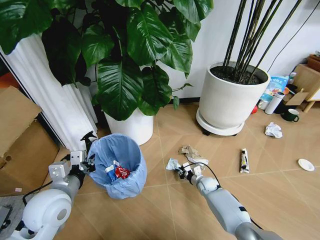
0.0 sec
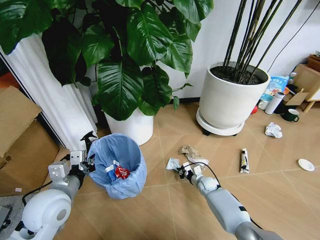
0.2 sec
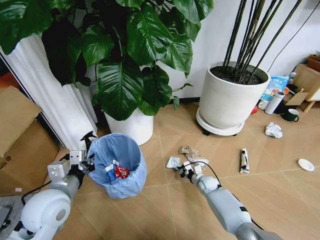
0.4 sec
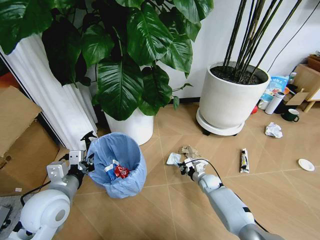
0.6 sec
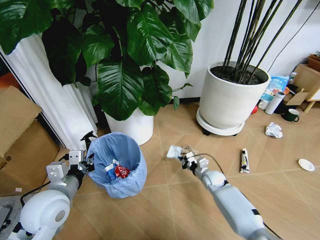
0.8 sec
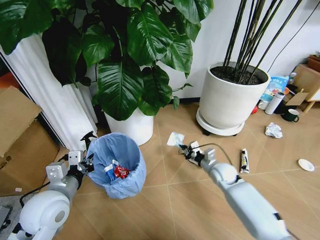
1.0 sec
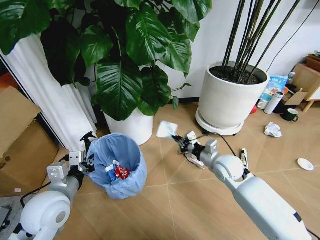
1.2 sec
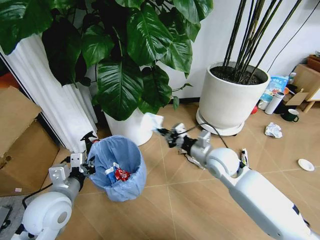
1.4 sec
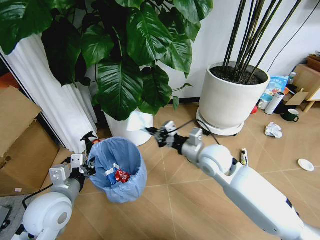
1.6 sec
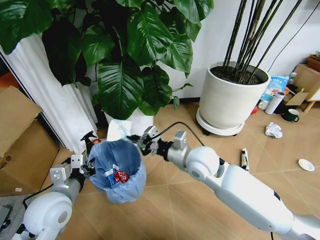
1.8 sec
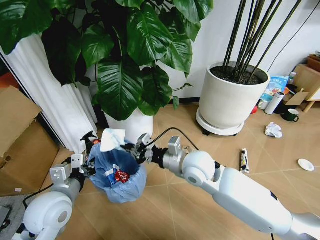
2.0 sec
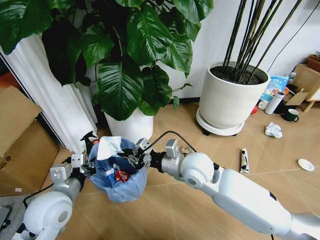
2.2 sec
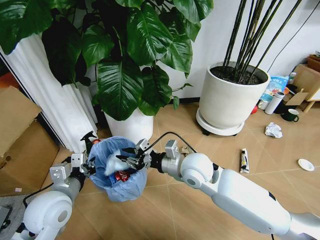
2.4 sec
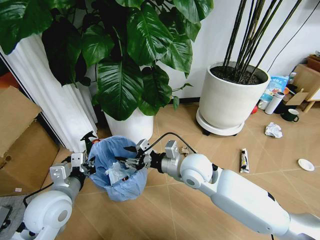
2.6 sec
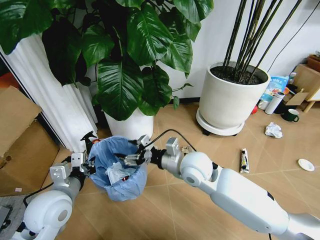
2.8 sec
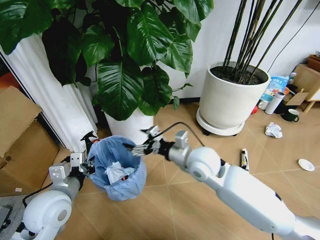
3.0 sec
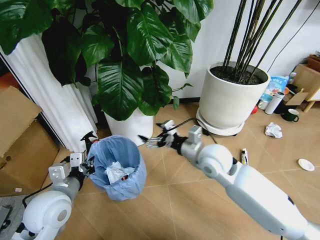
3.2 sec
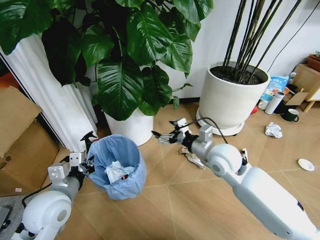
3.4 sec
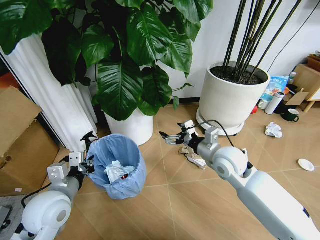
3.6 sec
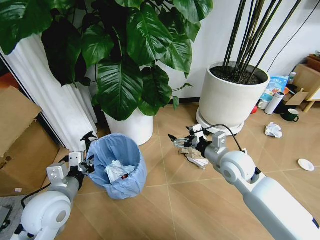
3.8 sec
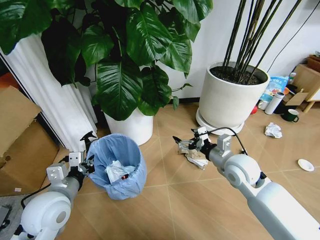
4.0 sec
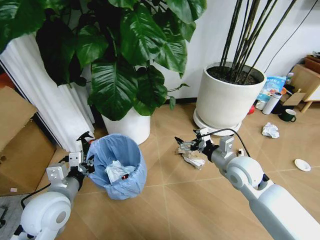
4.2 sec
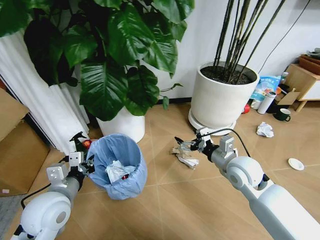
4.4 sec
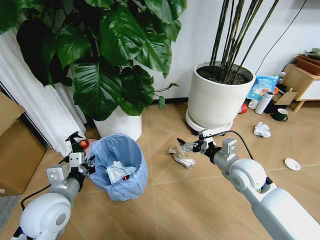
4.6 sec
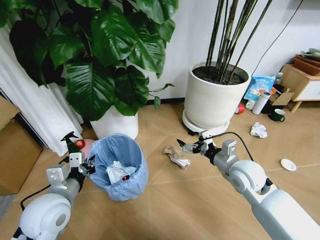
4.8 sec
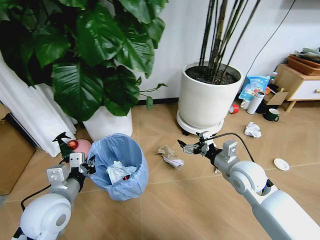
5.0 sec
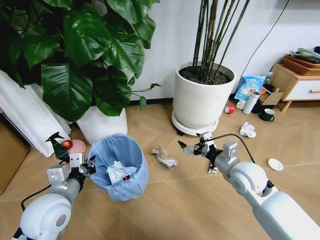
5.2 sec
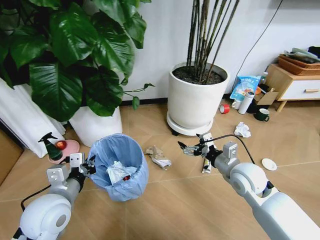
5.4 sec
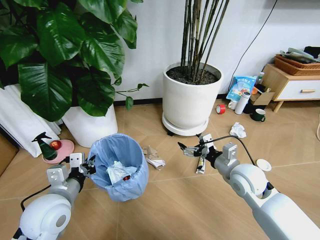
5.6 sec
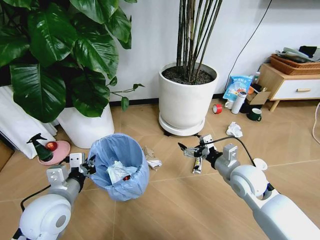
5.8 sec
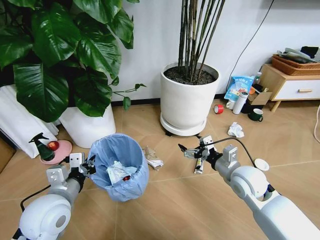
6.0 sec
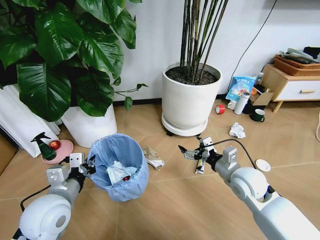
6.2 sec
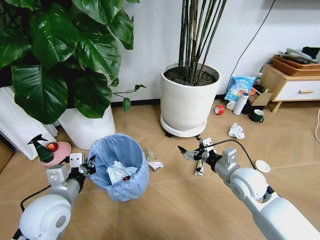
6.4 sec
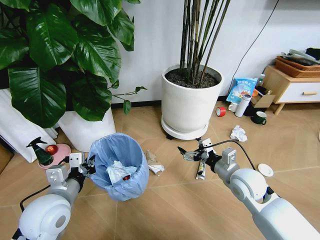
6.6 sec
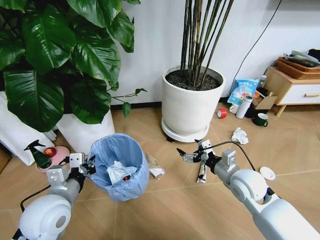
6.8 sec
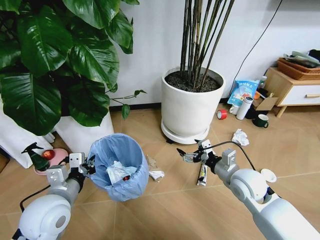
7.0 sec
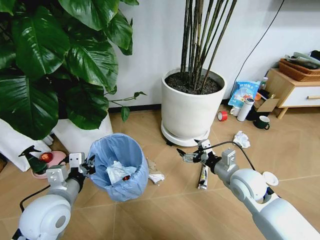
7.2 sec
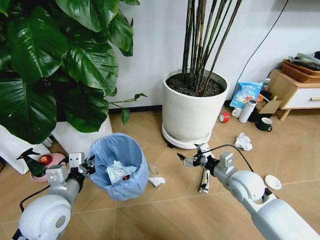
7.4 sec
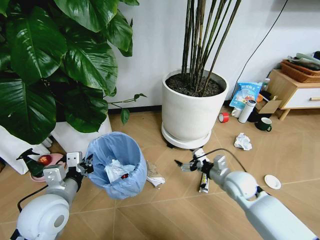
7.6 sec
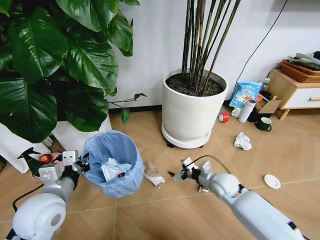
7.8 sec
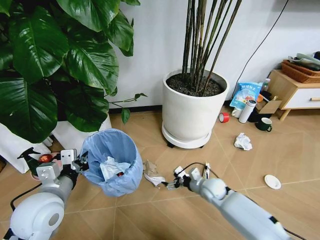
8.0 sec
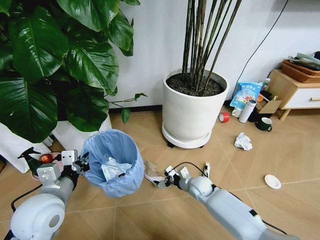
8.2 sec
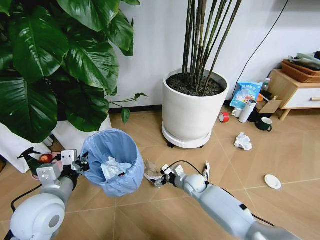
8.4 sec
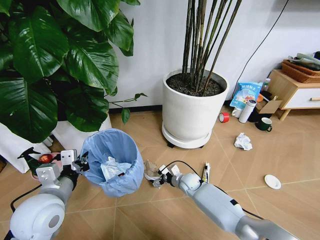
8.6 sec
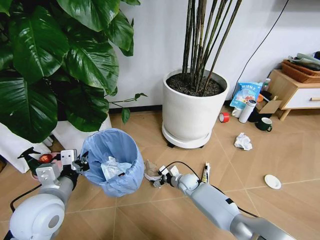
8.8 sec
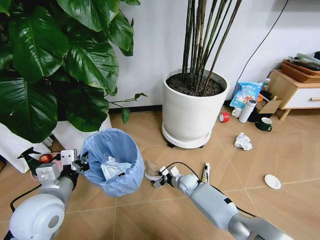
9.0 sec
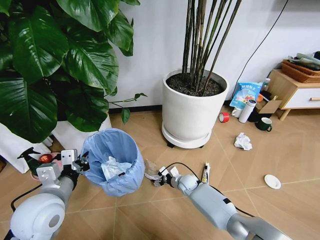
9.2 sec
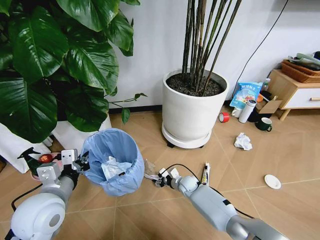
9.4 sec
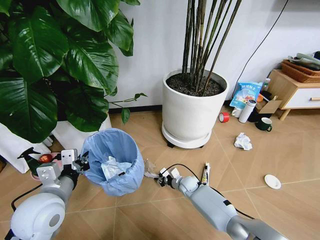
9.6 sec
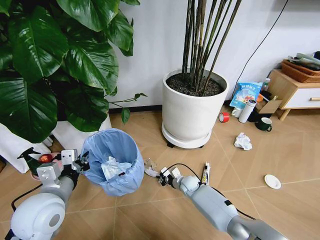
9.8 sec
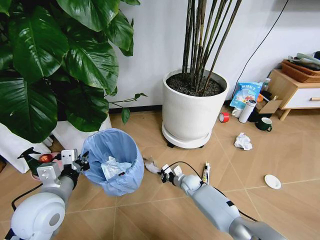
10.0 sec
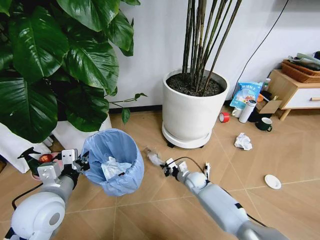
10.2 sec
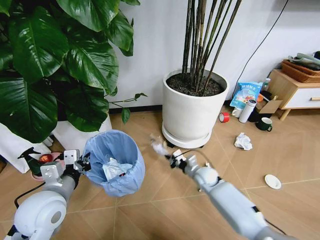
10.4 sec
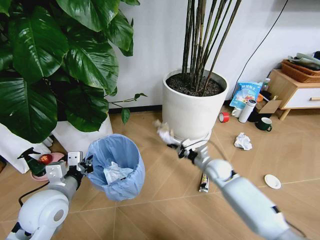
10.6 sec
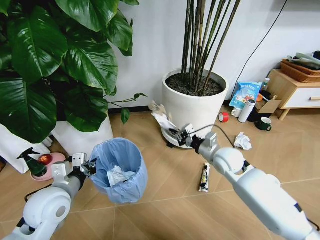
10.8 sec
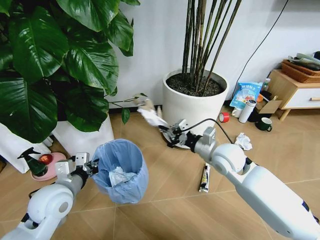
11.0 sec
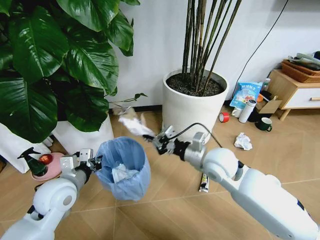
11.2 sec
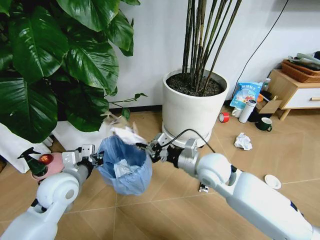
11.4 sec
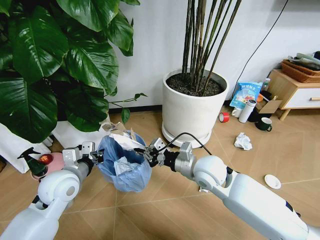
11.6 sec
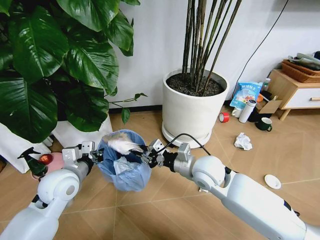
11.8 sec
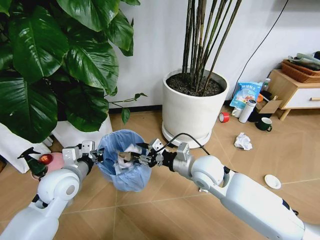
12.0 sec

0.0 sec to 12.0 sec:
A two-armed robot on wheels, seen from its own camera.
Task of the whole recording: Pick up the trash bin and place the garbage on the floor into it.
0.0 sec to 1.6 sec: The right gripper heads upward, covering roughly 35 cm.
1.6 sec to 3.0 sec: The right gripper opens its fingers.
3.0 sec to 4.4 sec: The right gripper is displaced to the right by roughly 15 cm.
6.0 sec to 7.6 sec: The right gripper is displaced downward by some 10 cm.
7.6 sec to 9.0 sec: The right gripper moves downward, to the left and forward, about 25 cm.
9.0 sec to 10.4 sec: The right gripper moves upward and to the right, some 10 cm, and closes up.
10.4 sec to 12.0 sec: The right gripper heads upward, covering approximately 20 cm, and opens; the left gripper shifts about 5 cm forward.

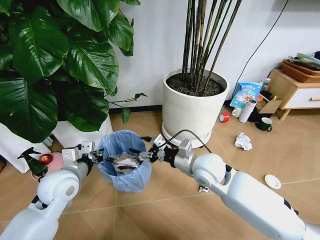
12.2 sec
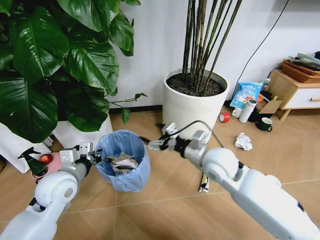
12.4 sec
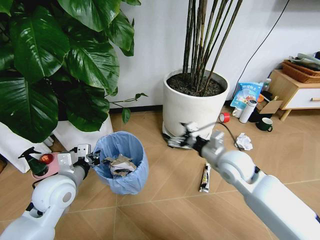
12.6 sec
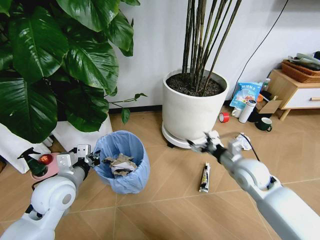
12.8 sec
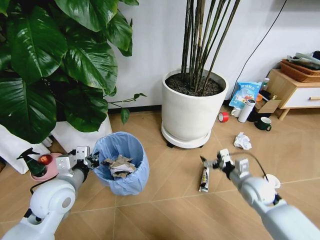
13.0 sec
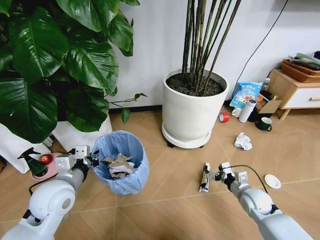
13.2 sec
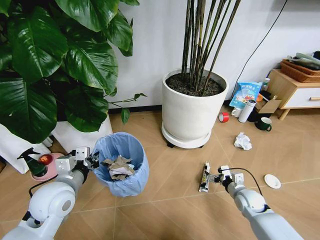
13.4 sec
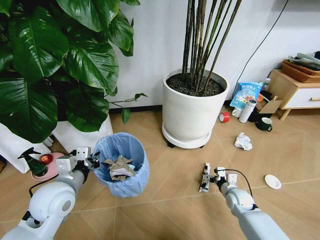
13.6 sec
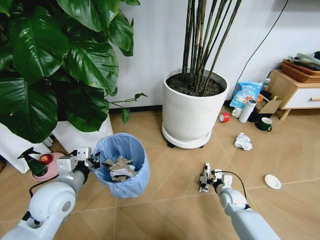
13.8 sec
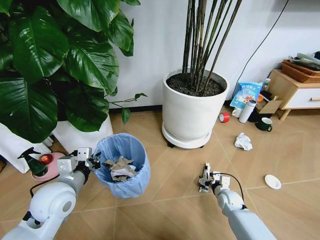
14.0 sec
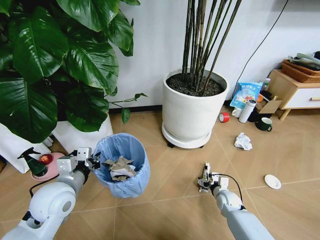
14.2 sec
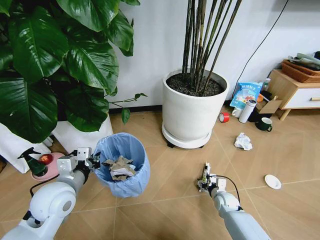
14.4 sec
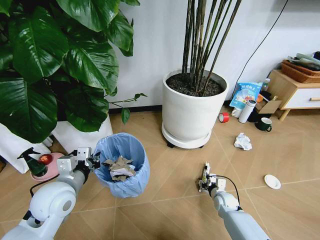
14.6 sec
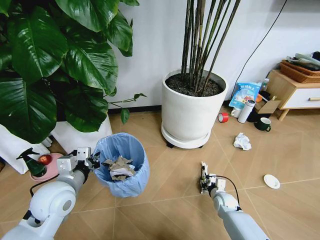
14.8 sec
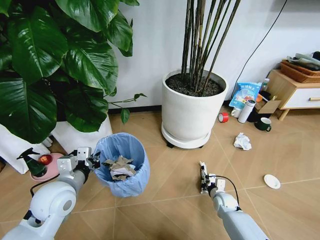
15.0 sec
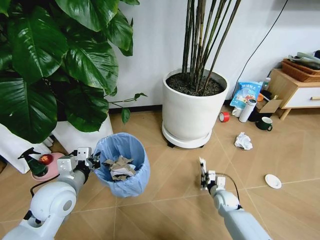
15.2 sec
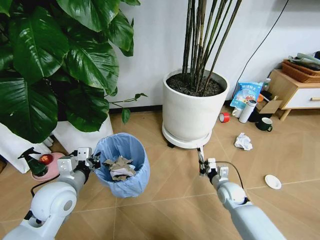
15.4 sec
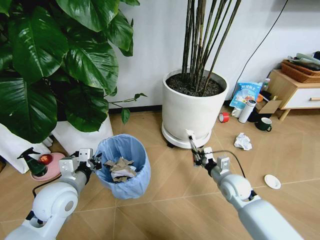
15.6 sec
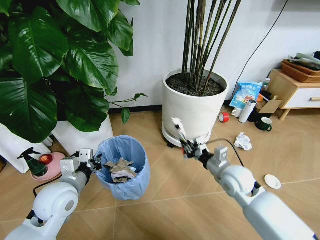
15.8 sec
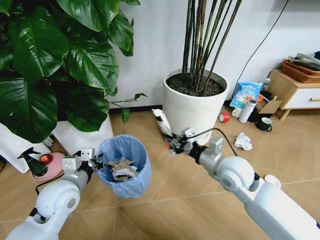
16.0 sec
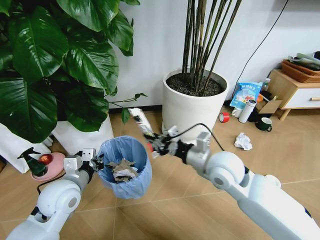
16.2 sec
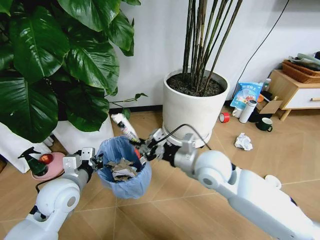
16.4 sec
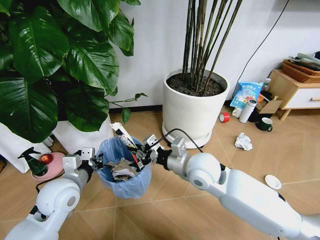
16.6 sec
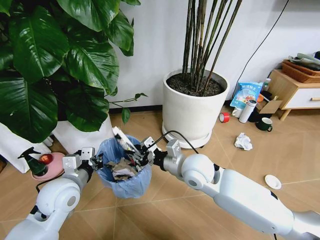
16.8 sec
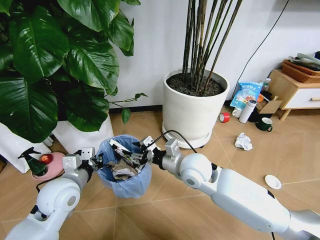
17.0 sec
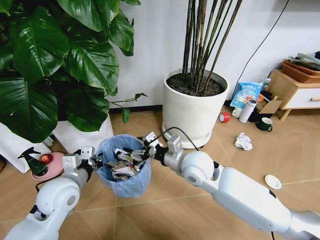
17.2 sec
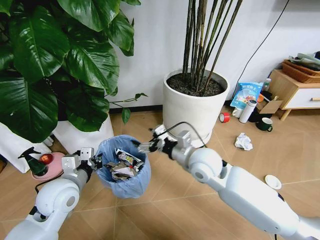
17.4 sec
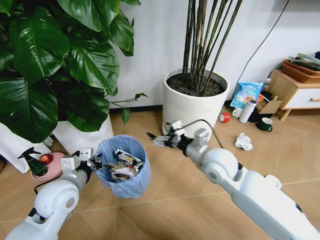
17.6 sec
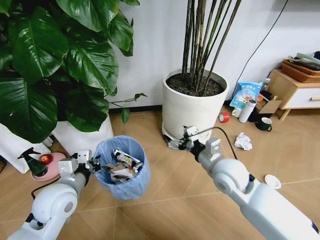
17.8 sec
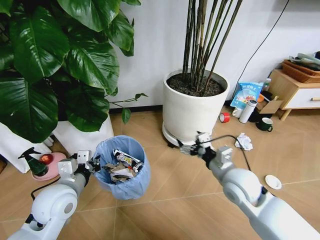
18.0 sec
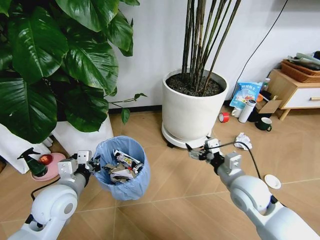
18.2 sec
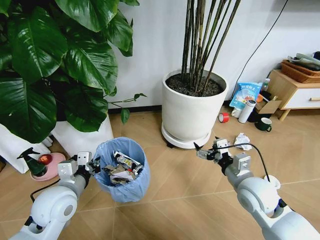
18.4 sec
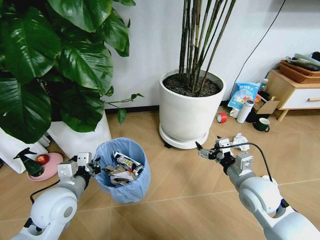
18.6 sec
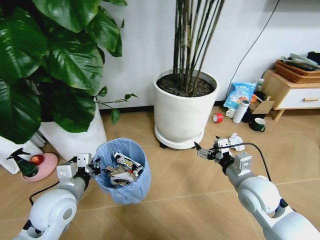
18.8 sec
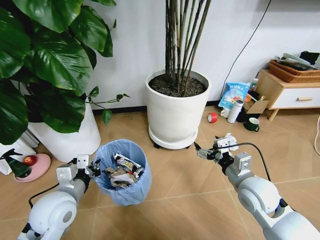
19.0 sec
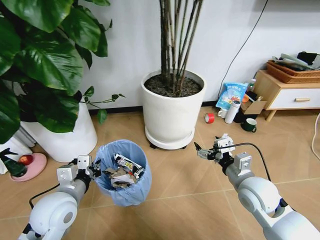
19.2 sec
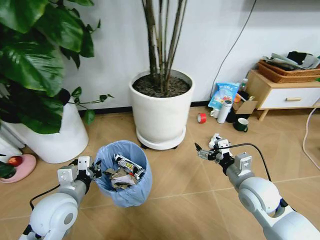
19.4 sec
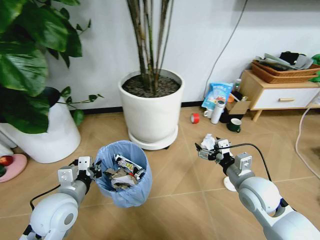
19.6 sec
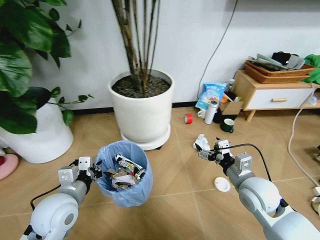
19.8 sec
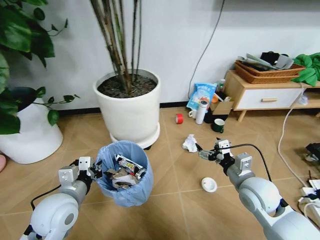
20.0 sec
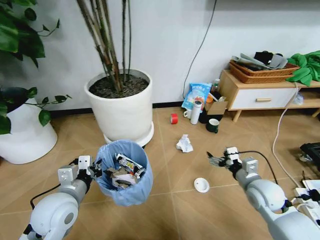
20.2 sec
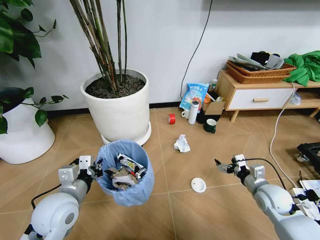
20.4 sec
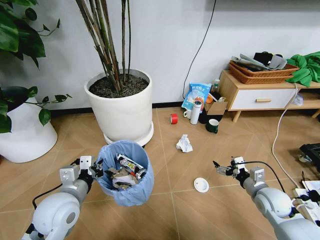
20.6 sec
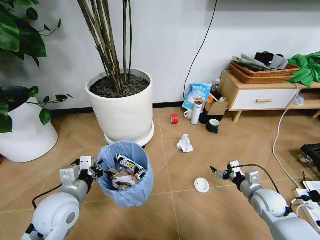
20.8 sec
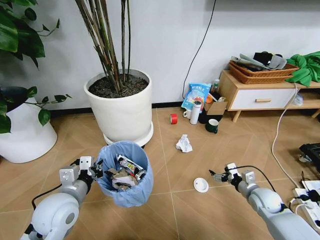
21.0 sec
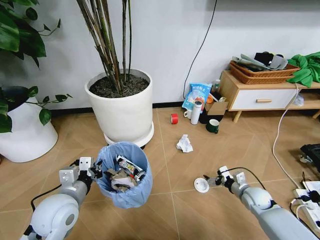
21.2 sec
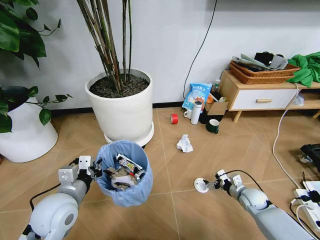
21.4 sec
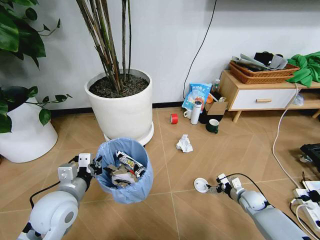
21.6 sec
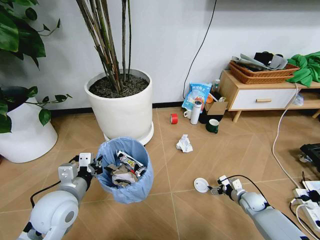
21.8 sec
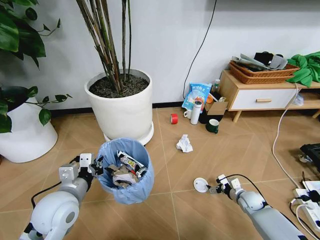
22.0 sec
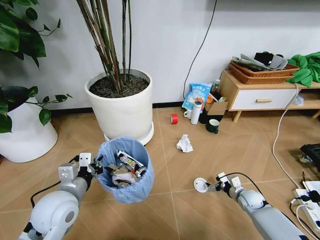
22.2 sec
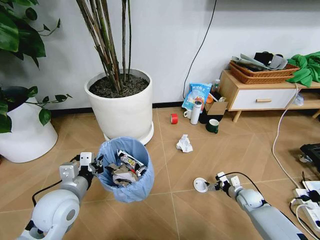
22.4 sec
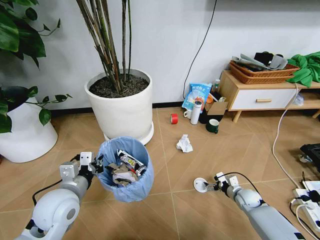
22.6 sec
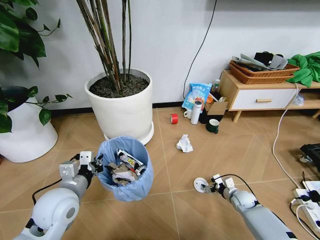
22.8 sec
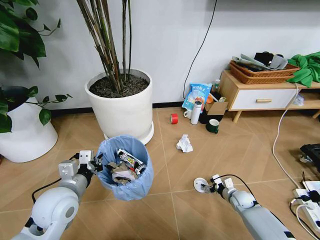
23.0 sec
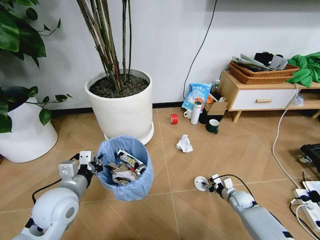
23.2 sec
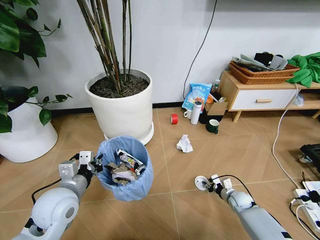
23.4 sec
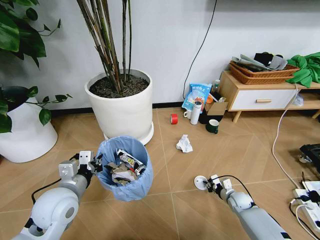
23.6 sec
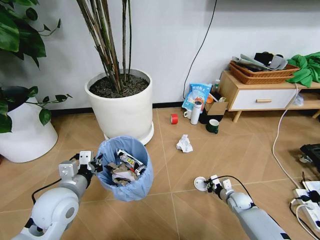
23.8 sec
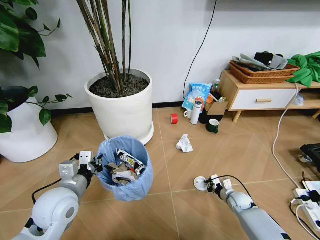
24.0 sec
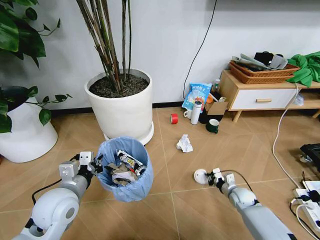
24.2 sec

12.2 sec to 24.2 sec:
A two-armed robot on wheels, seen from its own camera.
Task of the whole recording: Pick up the trash bin and place the garbage on the floor into it.
12.2 sec to 13.8 sec: The right gripper heads downward and to the right, covering roughly 30 cm.
13.8 sec to 15.2 sec: The right gripper closes up.
15.2 sec to 16.6 sec: The right gripper heads upward and to the left, covering about 35 cm.
16.6 sec to 18.2 sec: The right gripper goes roughly 15 cm to the right, and opens up.
19.8 sec to 21.2 sec: The right gripper travels downward and to the right by some 20 cm.
21.2 sec to 22.6 sec: The right gripper heads downward, covering approximately 5 cm.
22.6 sec to 24.2 sec: The right gripper closes up.
